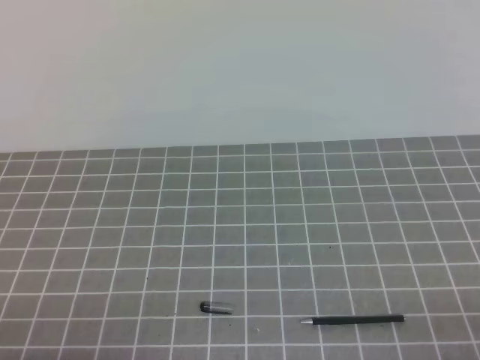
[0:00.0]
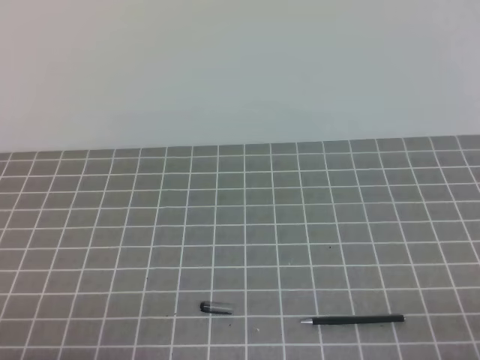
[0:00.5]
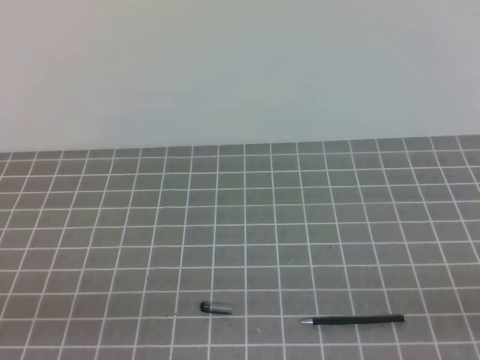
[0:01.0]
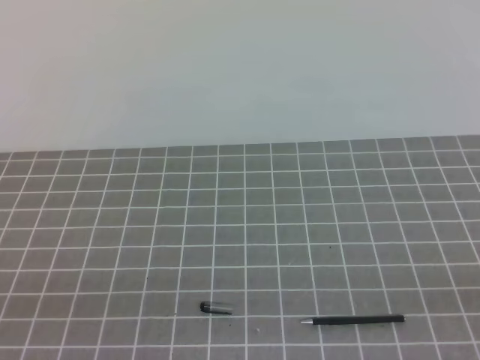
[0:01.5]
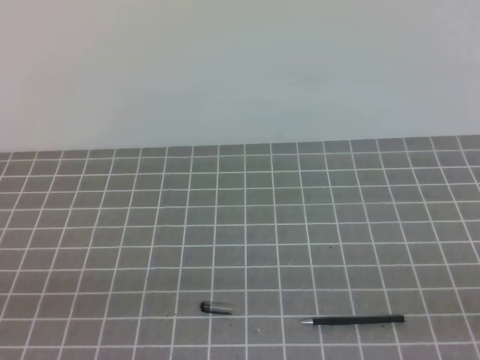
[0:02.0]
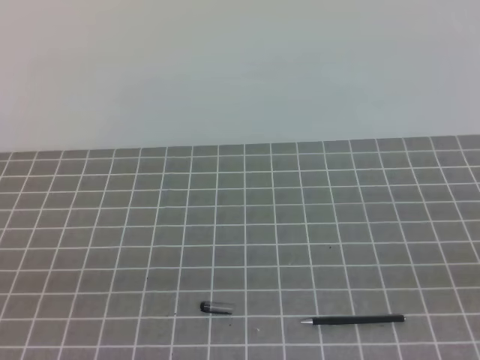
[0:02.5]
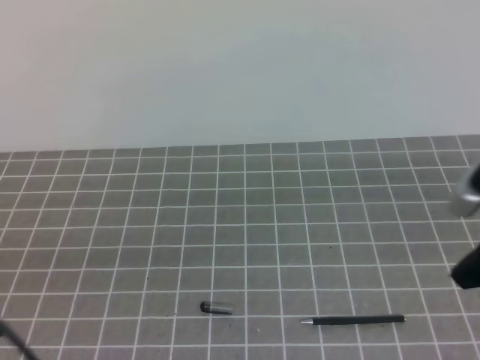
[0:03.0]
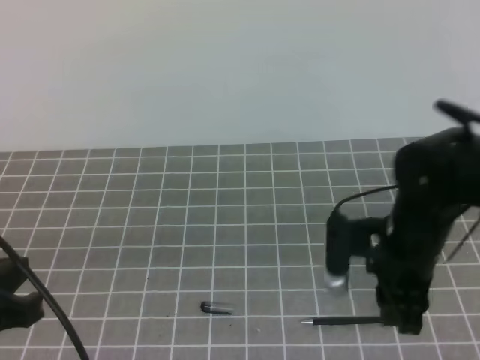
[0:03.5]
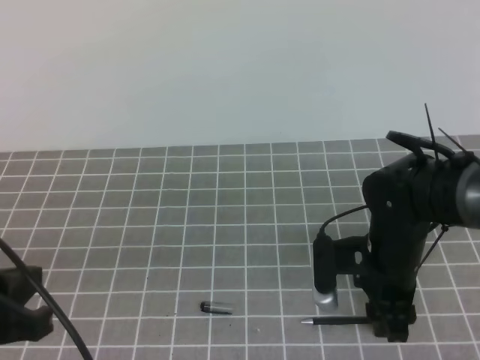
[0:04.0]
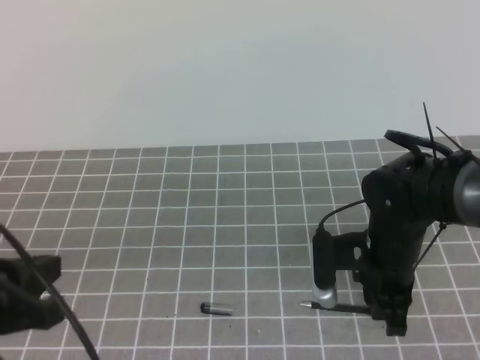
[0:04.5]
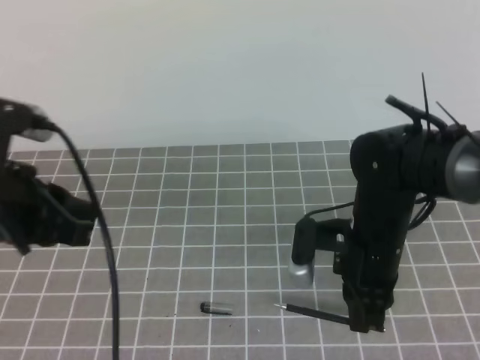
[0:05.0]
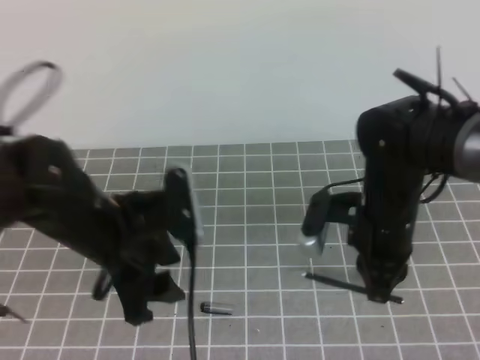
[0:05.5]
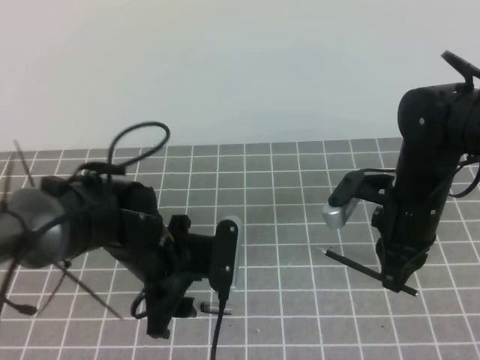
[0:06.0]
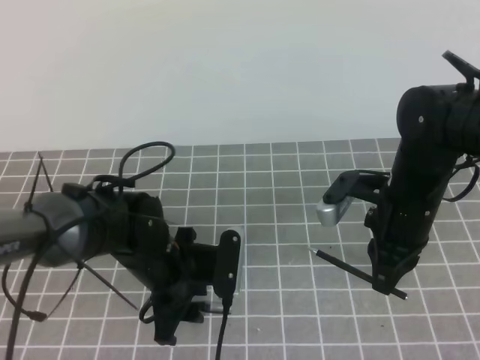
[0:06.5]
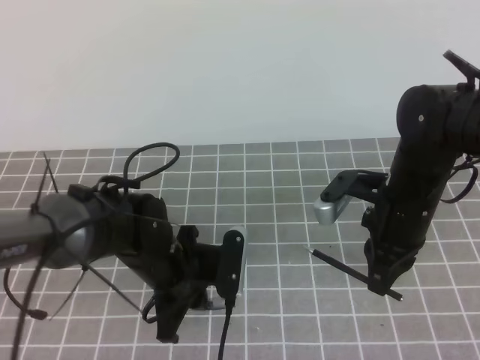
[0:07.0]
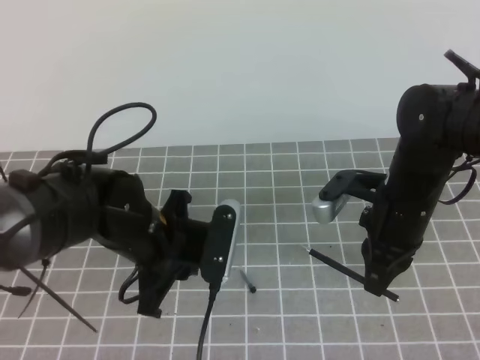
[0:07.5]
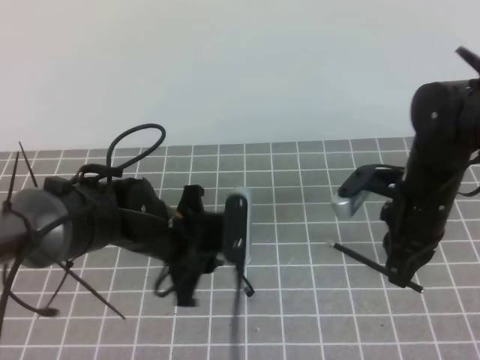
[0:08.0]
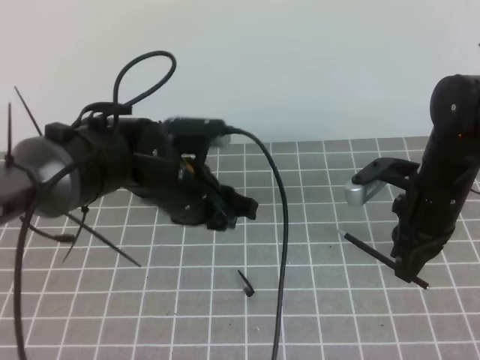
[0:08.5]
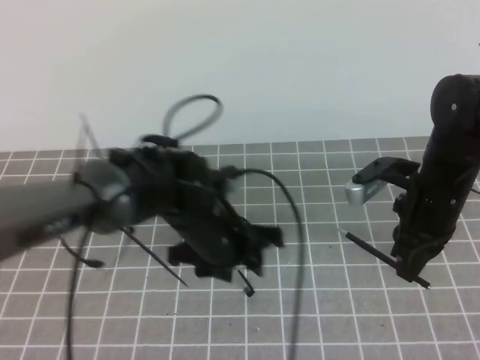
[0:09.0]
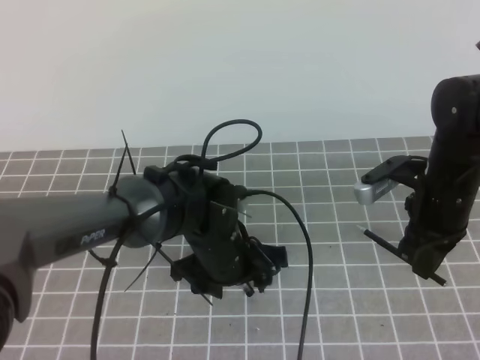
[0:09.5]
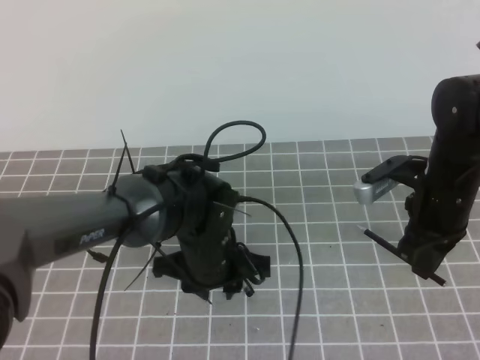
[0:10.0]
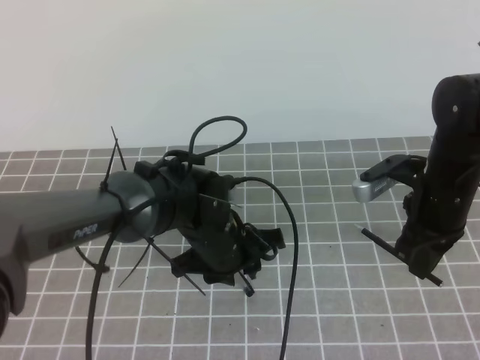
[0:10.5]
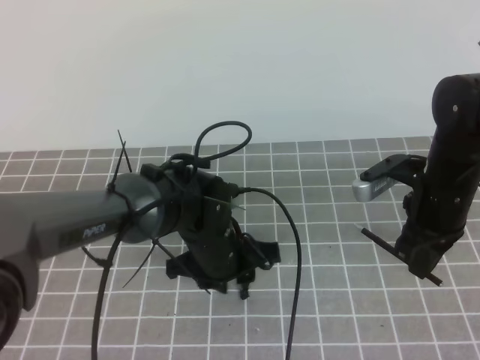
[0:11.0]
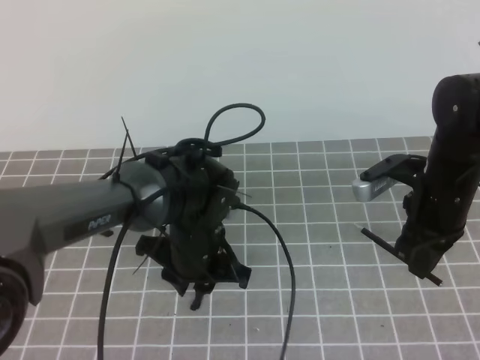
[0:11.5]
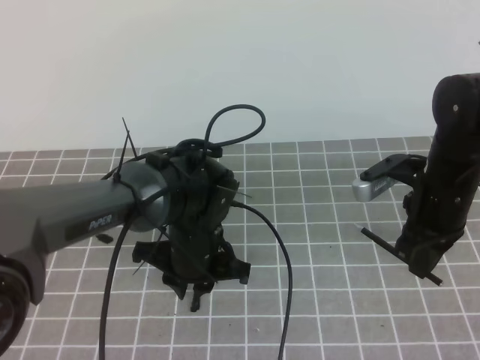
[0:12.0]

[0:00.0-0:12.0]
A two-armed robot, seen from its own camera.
Task of the whole recording: on the grey tablecloth, hold the pen cap in one hand and the pen in the other, then cover the pen cap.
0:02.0 to 0:04.0: The right gripper moves forward and to the left, some 35 cm, and opens; the left gripper travels forward by some 10 cm.
0:04.0 to 0:06.0: The right gripper changes place by some 5 cm, and closes. Meanwhile the left gripper heads forward, to the right and downward, covering about 20 cm, and opens its fingers.
0:06.0 to 0:08.0: The left gripper closes up.
0:08.0 to 0:10.0: The left gripper shifts by approximately 5 cm, and opens and closes again.

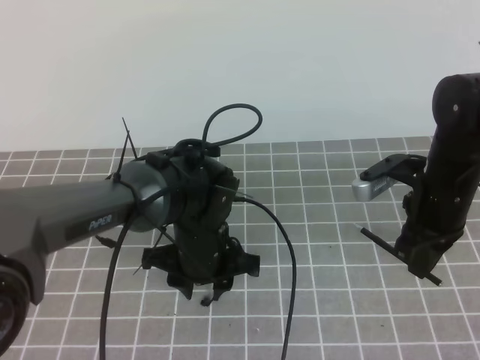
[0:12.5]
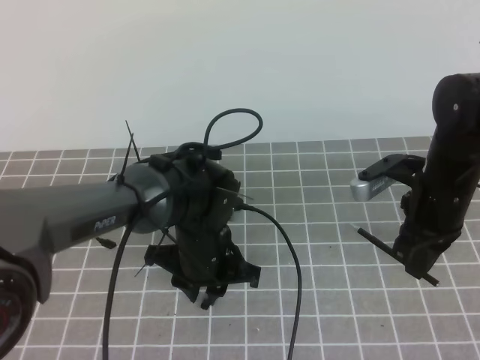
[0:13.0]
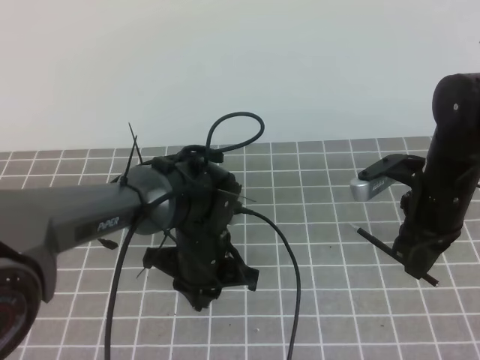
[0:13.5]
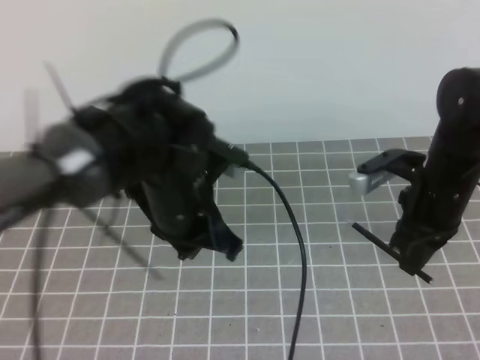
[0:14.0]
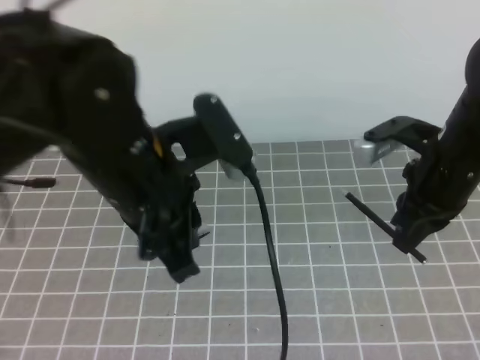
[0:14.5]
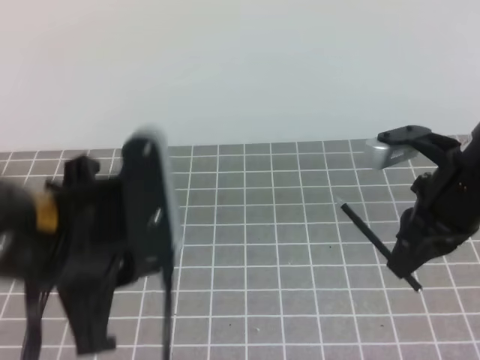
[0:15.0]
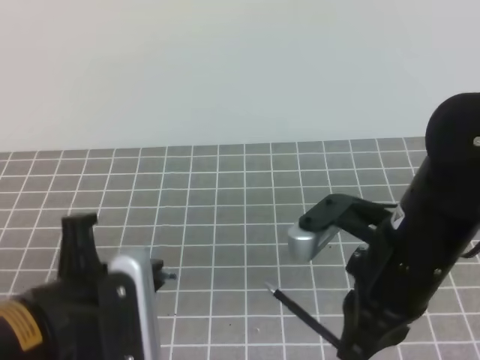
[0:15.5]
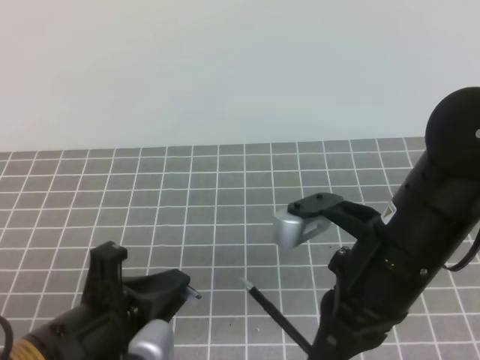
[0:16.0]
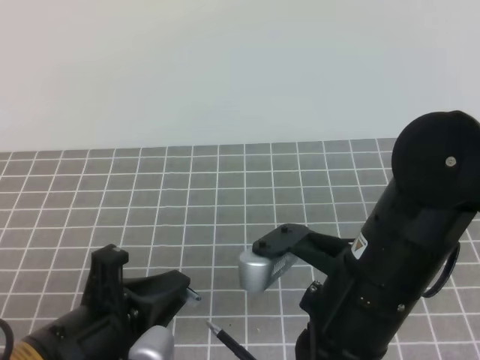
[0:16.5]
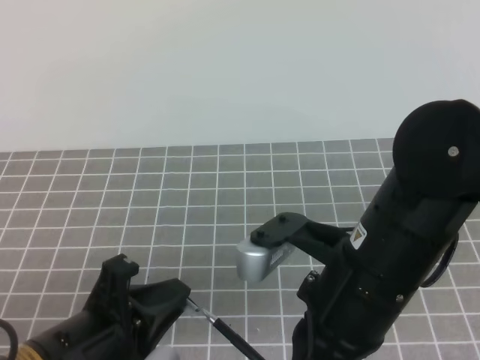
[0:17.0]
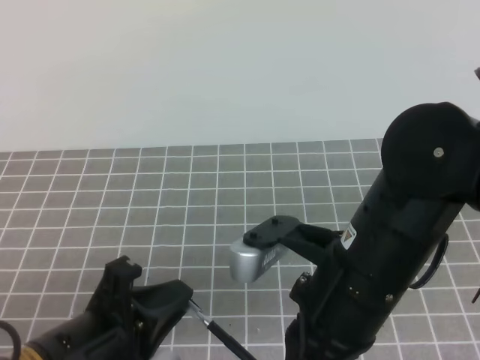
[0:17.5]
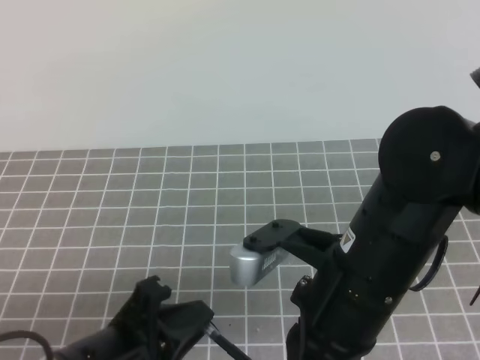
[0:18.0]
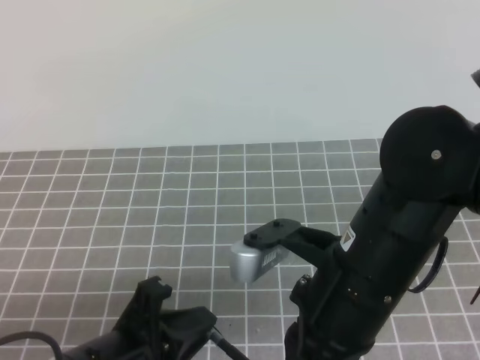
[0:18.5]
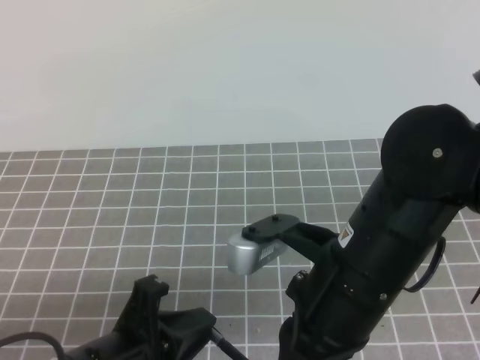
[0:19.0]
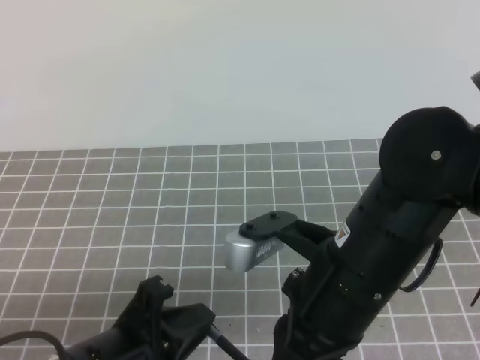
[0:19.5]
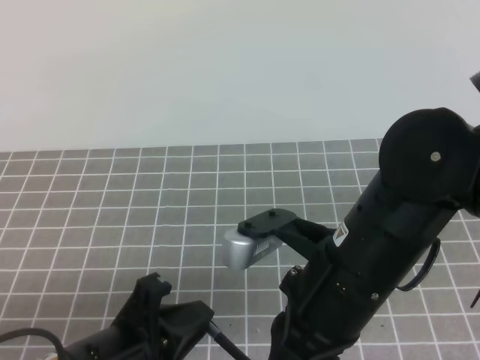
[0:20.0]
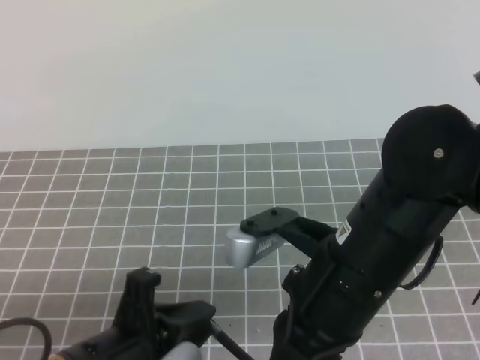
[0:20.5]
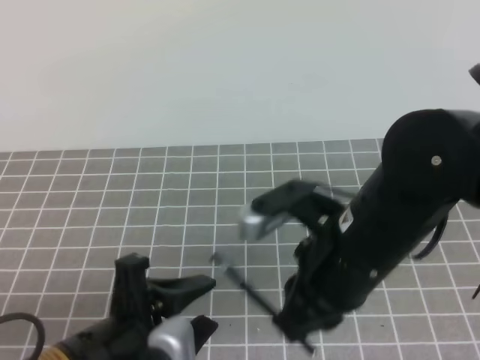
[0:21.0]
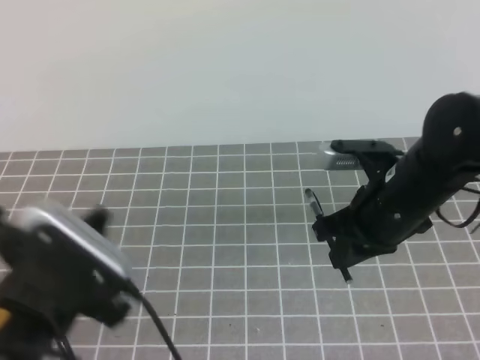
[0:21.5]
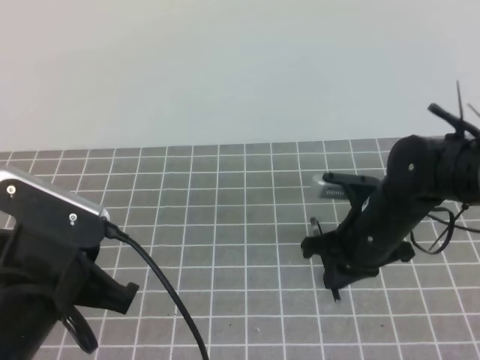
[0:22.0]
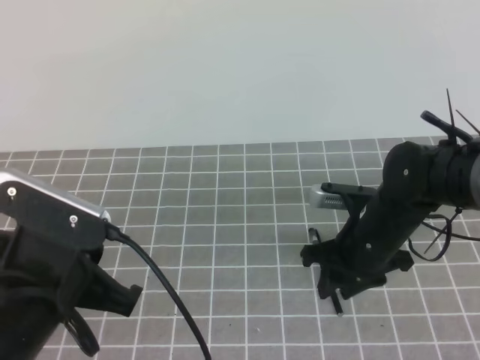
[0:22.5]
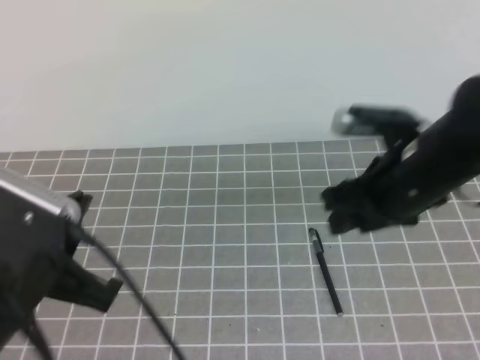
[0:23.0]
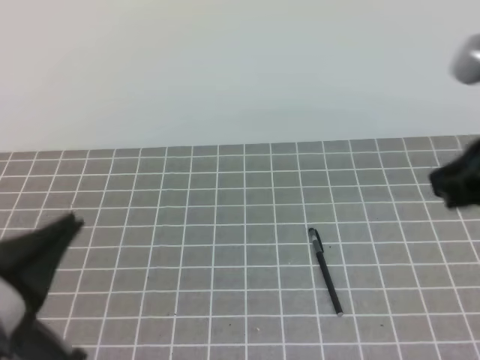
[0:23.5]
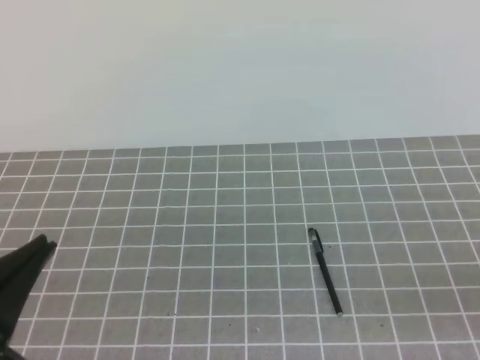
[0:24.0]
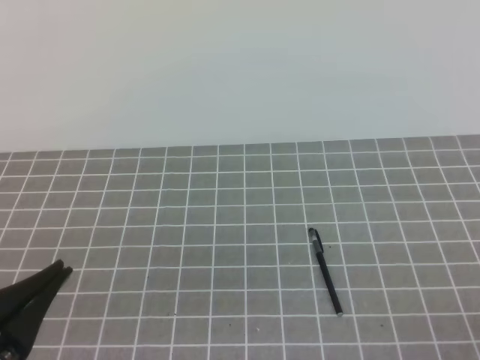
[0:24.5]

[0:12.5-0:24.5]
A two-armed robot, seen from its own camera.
Task of the whole recording: on the grey tablecloth, hold the pen cap in one hand and the pen in the other, then cover the pen cap.
0:12.5 to 0:14.5: The right gripper moves upward, some 5 cm; the left gripper shifts about 20 cm upward and backward, and closes up.
0:14.5 to 0:16.5: The right gripper moves backward and to the left, roughly 20 cm. Meanwhile the left gripper moves downward, backward and to the left, roughly 15 cm.
0:16.5 to 0:18.5: The grippers stay close to where they were, moving slightly.
0:18.5 to 0:20.5: The left gripper opens its fingers.
0:20.5 to 0:22.5: The left gripper shifts by some 5 cm, and closes its fingers. The right gripper is displaced forward, downward and to the right by some 20 cm, and opens up.
0:22.5 to 0:24.5: The left gripper shifts approximately 10 cm backward, while the right gripper shifts some 35 cm backward and to the right, and closes.

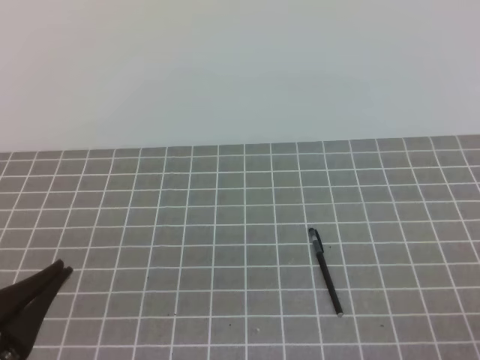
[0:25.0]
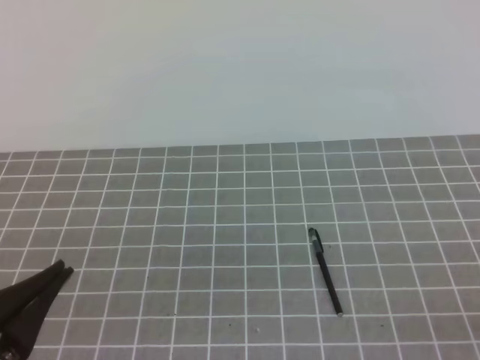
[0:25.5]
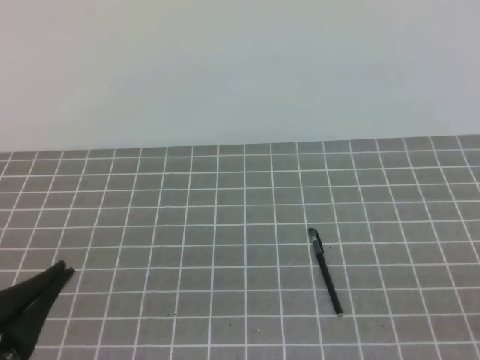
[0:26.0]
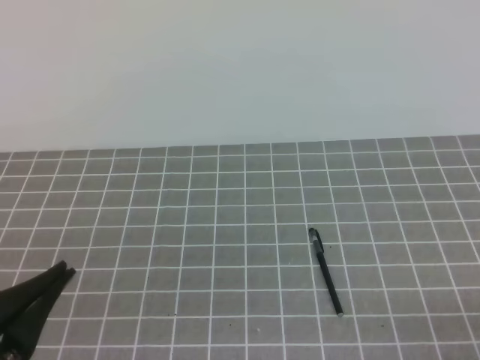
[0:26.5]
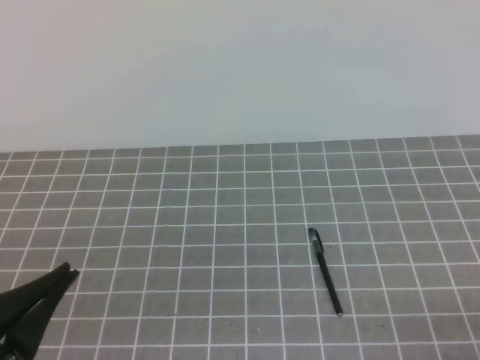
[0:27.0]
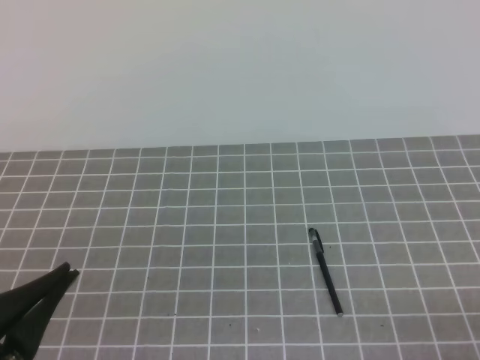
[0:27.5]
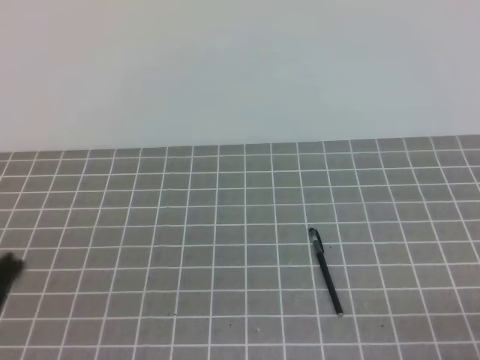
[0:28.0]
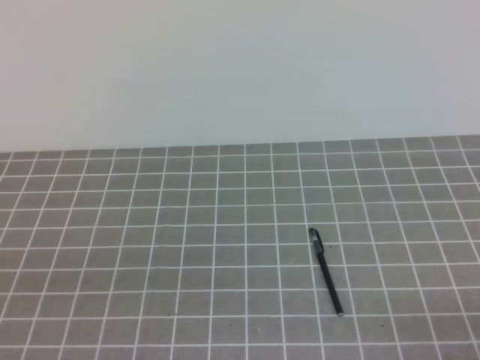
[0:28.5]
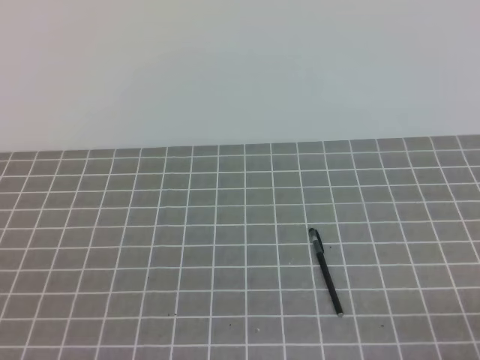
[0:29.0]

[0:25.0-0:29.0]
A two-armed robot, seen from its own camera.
Task of the whole recording: on the grey tablecloth, hold the pen cap in one hand and the pen in the other, then cover the pen cap.
0:27.0 to 0:29.0: The left gripper is displaced backward by roughly 5 cm.
